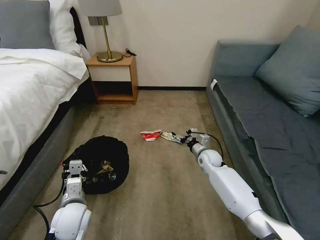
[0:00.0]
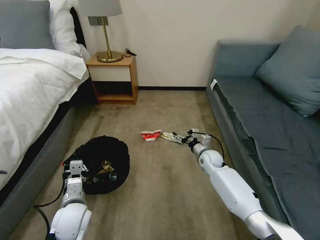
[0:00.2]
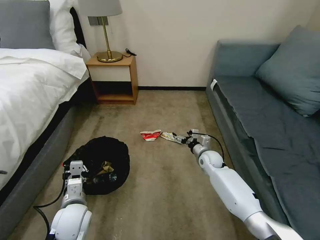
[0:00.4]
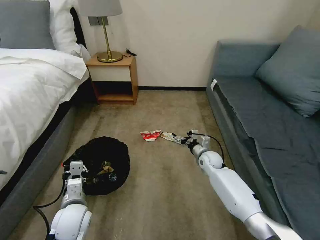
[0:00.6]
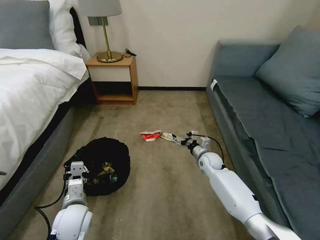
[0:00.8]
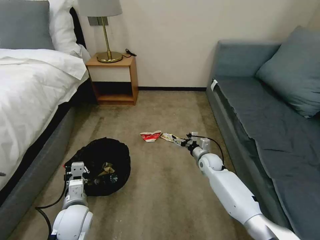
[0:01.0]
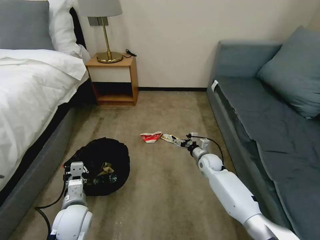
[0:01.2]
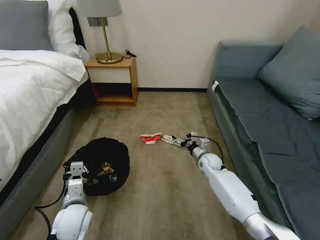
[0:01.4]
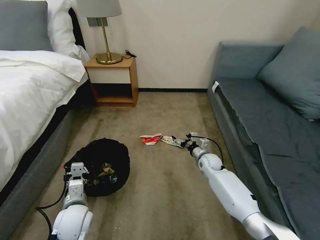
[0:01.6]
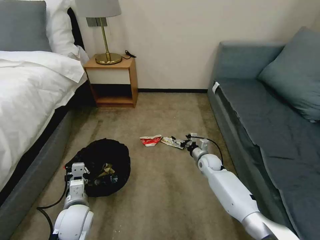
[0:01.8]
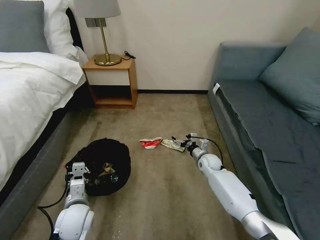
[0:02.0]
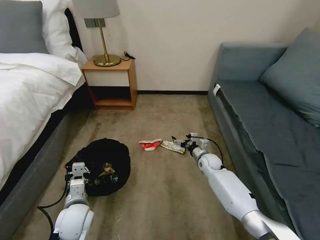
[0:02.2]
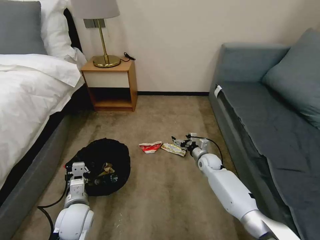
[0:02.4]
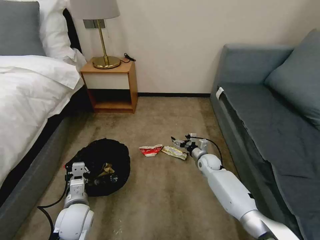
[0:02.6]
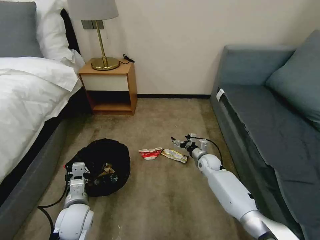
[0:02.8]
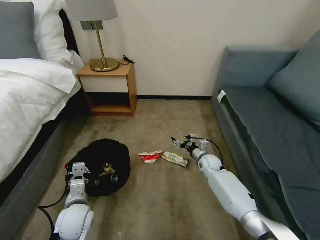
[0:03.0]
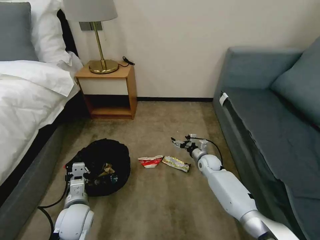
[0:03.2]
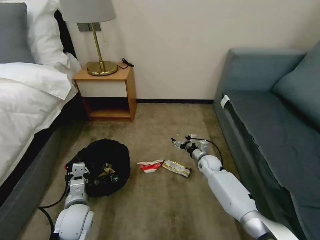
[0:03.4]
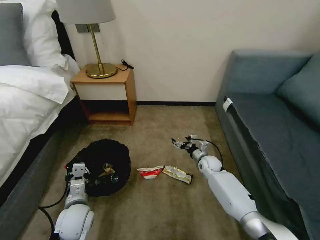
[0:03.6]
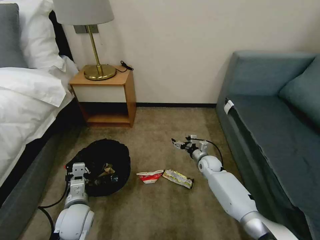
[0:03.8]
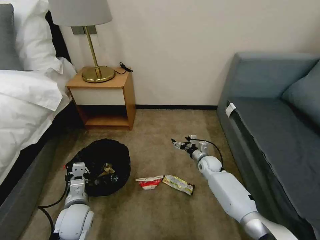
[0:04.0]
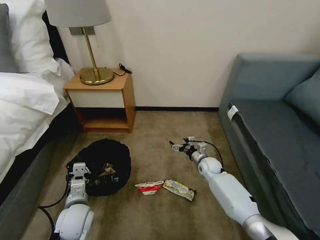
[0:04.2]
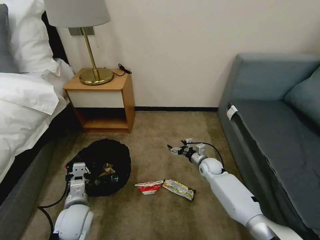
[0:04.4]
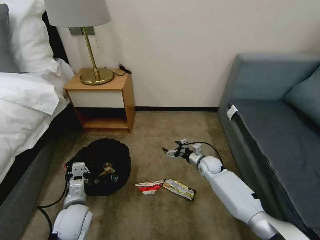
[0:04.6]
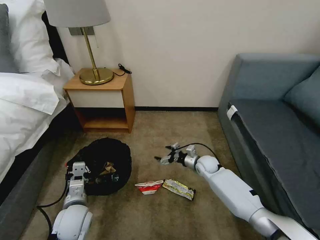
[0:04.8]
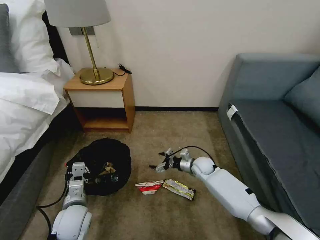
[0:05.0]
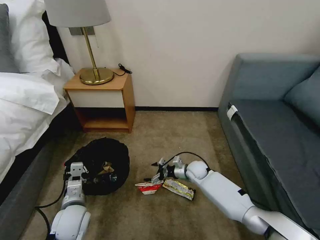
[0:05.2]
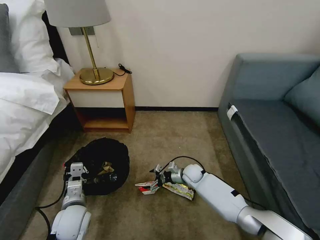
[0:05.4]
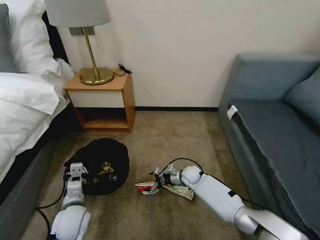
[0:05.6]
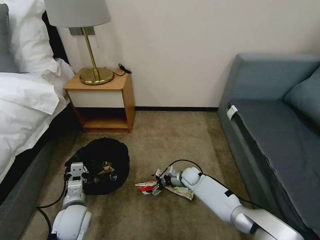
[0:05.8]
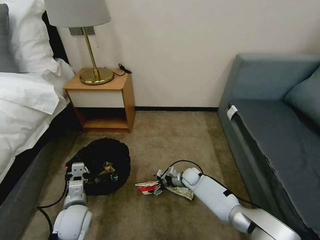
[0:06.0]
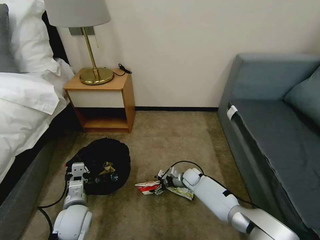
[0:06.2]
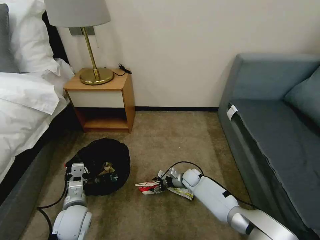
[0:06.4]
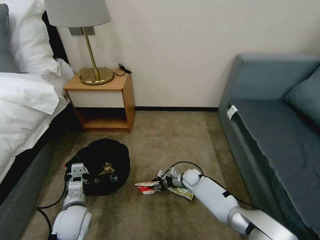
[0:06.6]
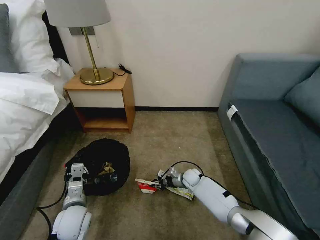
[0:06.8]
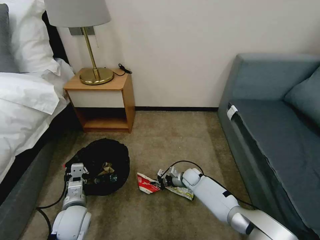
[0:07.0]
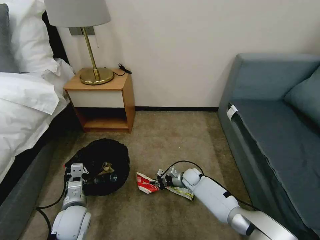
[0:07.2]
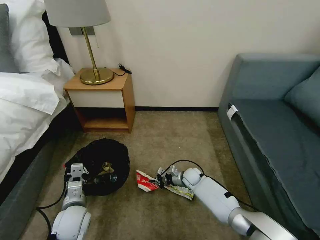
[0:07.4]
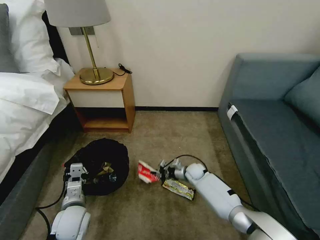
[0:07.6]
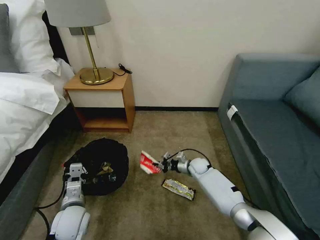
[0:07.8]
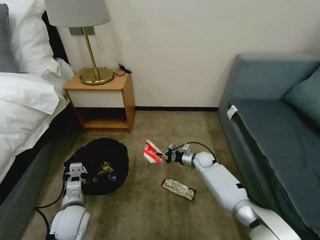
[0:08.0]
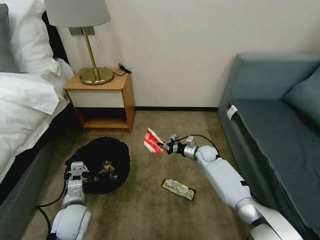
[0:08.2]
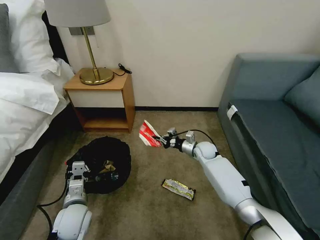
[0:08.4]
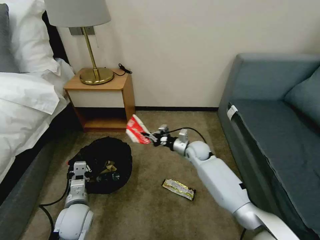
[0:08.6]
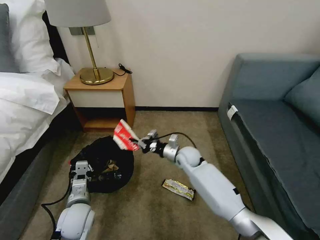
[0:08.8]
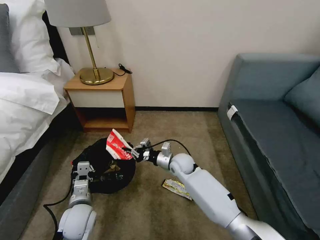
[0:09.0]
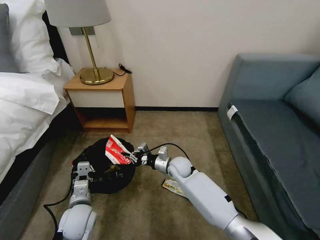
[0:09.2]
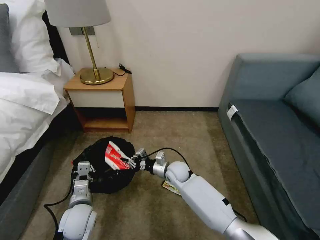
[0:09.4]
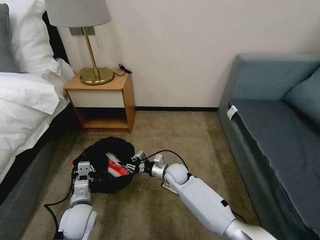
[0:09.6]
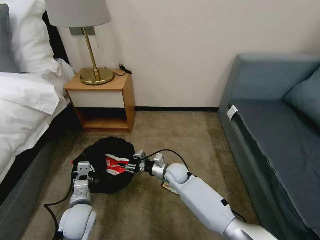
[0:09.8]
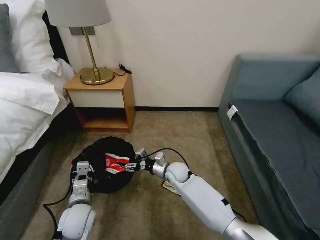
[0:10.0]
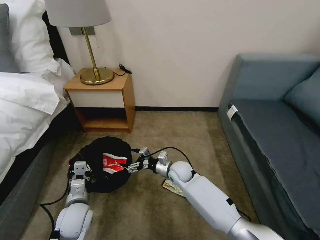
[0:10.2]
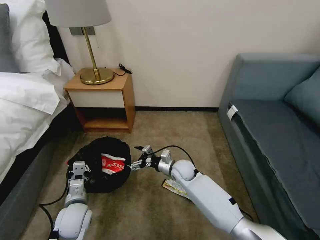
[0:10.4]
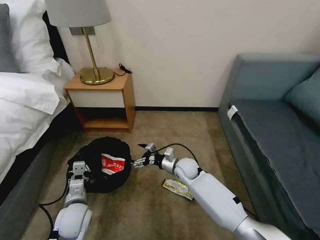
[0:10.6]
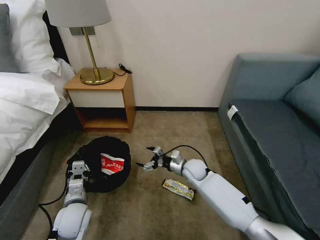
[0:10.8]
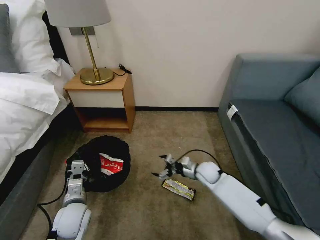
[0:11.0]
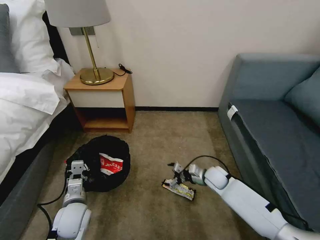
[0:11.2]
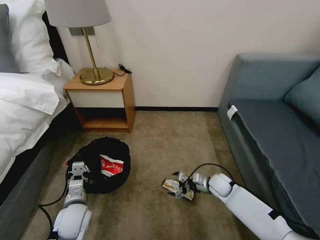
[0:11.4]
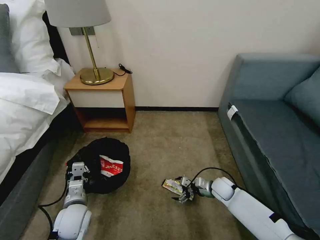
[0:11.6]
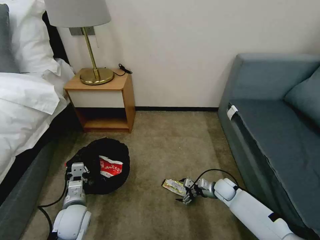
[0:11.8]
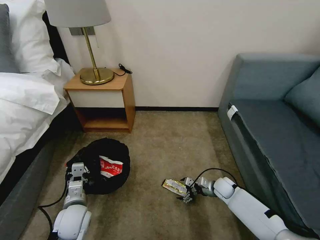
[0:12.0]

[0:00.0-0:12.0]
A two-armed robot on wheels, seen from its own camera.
Task of the whole recording: Pick up the trash bin, then pick up the garbage on the floor and place it into the trash bin.
0:00.0 to 0:01.6: The grippers stay close to where they were, moving slightly.
0:01.6 to 0:03.0: The two grippers keep their place.
0:04.4 to 0:06.0: The right gripper shifts some 10 cm to the left and downward.
0:06.0 to 0:07.6: The right gripper closes up.
0:07.6 to 0:09.0: The right gripper moves upward and to the left, approximately 15 cm.
0:09.0 to 0:10.4: The right gripper opens up.
0:10.4 to 0:12.0: The right gripper travels to the right and downward by roughly 20 cm.

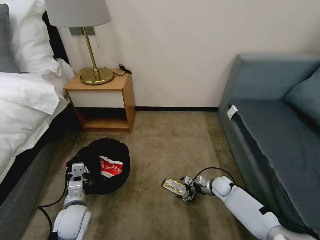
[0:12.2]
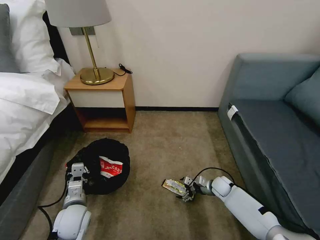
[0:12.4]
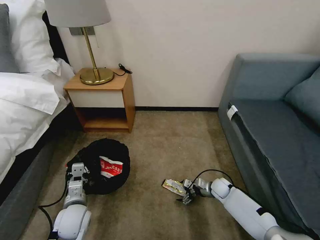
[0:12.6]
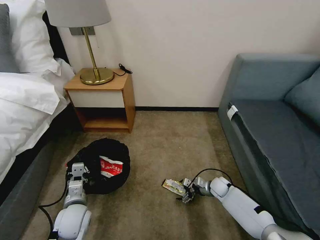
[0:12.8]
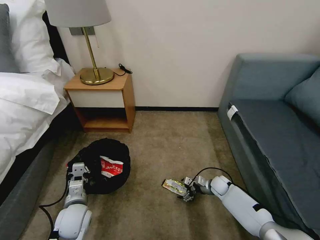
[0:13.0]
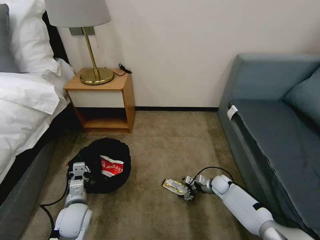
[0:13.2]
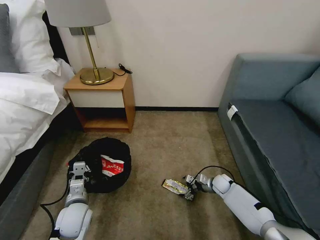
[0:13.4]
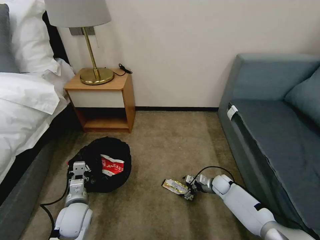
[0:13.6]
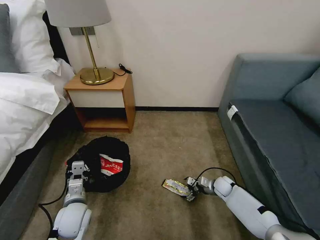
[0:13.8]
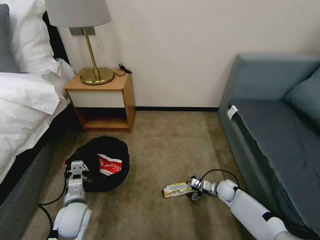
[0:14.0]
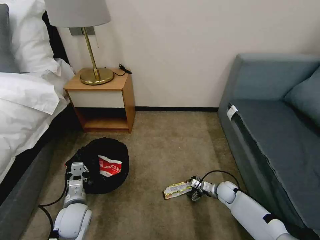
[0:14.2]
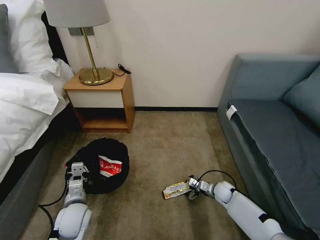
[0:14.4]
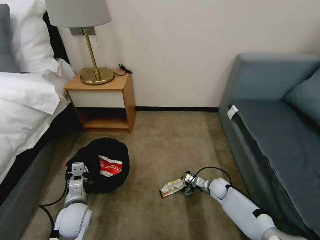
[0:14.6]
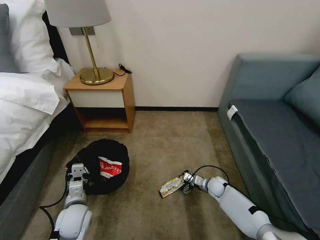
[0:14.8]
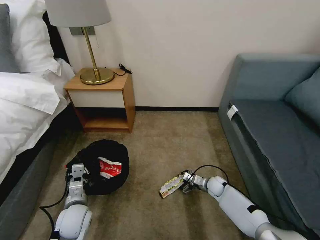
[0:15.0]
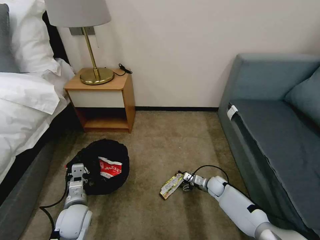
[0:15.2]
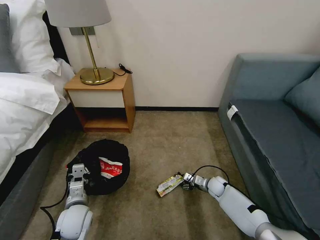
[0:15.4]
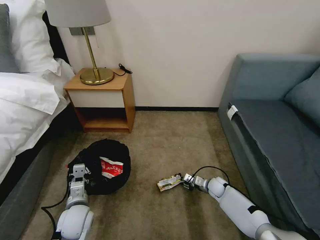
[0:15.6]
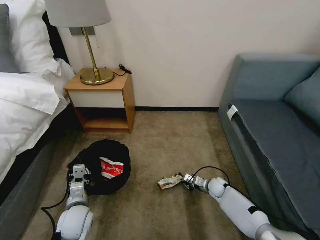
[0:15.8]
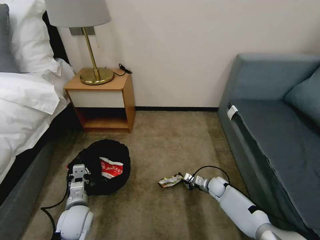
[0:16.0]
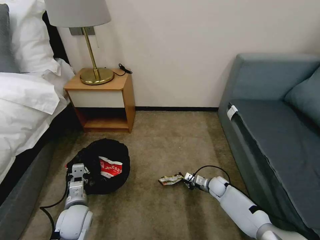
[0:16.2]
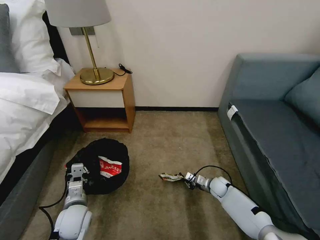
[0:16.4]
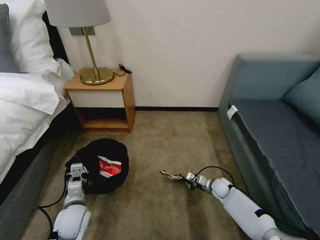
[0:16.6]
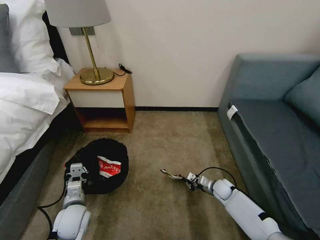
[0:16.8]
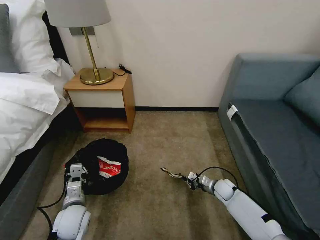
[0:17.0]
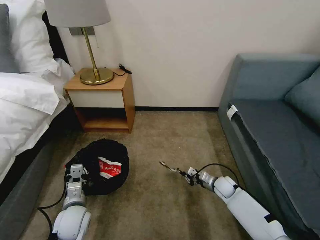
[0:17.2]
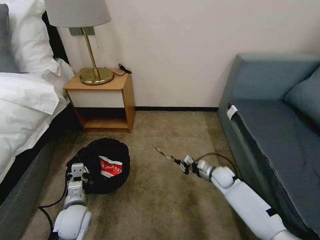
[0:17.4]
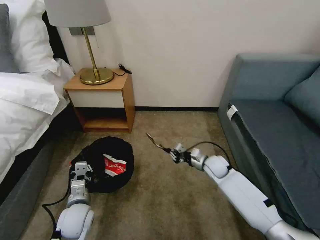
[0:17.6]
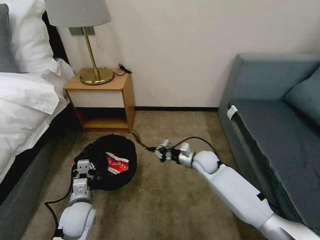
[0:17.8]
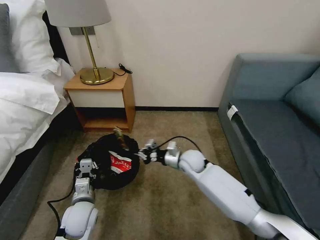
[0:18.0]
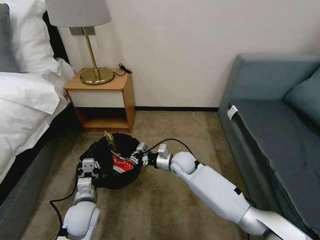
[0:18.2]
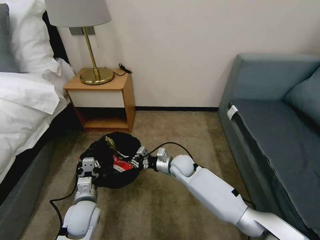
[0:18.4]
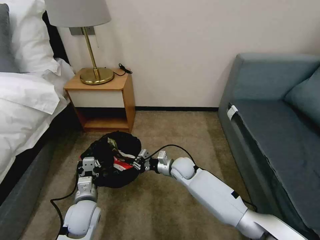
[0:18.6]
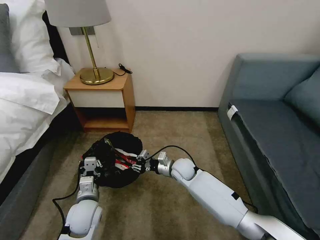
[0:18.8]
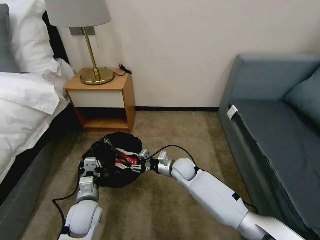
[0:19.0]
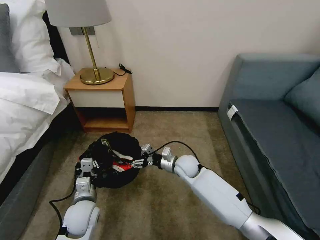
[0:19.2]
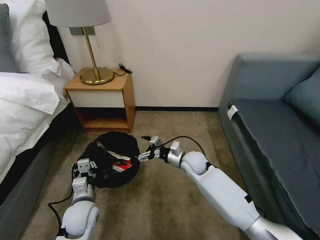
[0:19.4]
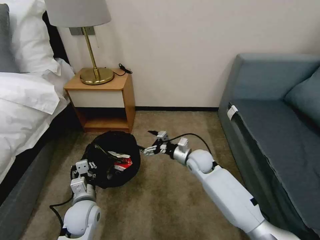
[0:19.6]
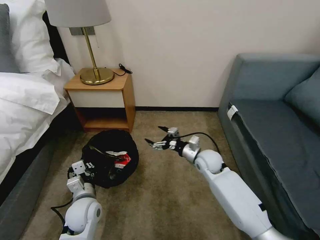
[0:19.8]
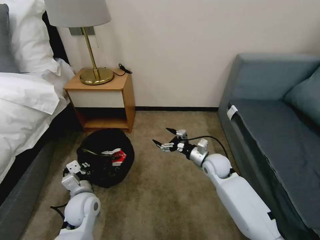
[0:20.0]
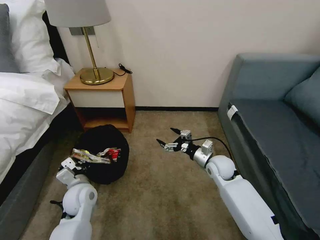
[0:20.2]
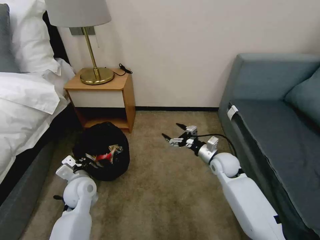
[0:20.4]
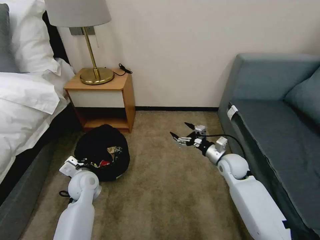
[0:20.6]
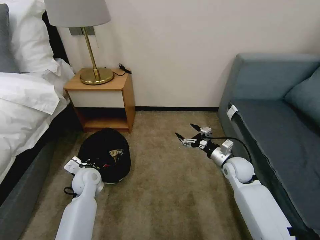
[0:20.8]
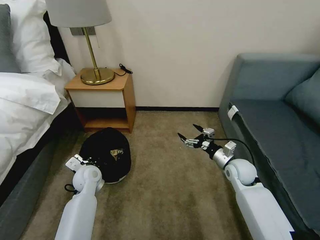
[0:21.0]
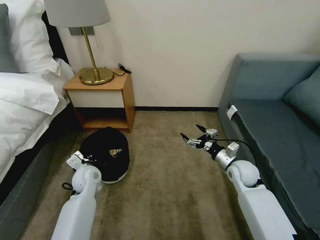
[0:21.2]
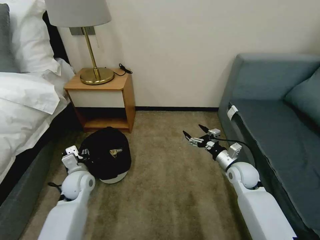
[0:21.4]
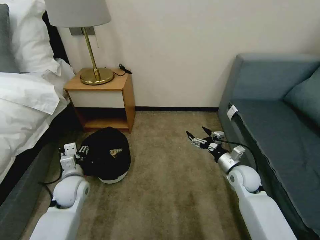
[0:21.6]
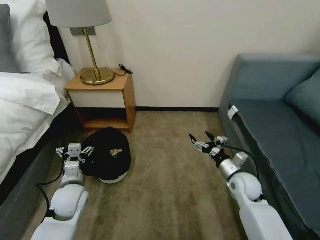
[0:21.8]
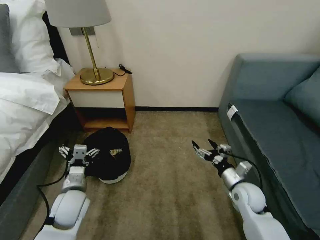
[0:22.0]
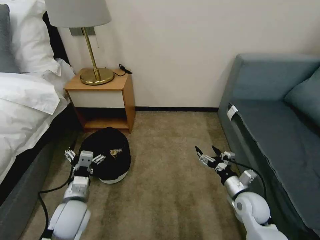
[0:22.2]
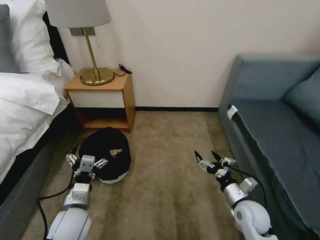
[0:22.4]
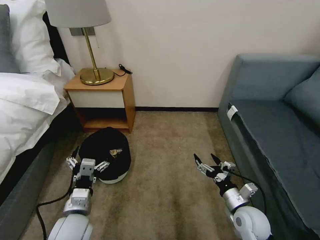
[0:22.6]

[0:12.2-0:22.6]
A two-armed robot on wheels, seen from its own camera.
Task of the whole recording: Pick up the trash bin, then pick up the garbage on the floor and place it into the trash bin.
0:12.2 to 0:15.2: The grippers move only a little.
0:15.2 to 0:16.6: The right gripper closes.
0:16.6 to 0:18.2: The right gripper moves to the left and upward, about 25 cm.
0:18.2 to 0:19.6: The right gripper heads to the right, covering approximately 5 cm, and opens its fingers.
0:19.6 to 0:21.2: The right gripper heads to the right, covering approximately 15 cm. Meanwhile the left gripper moves forward, some 10 cm.
0:21.2 to 0:22.6: Both grippers move backward, about 15 cm. The left gripper opens.
